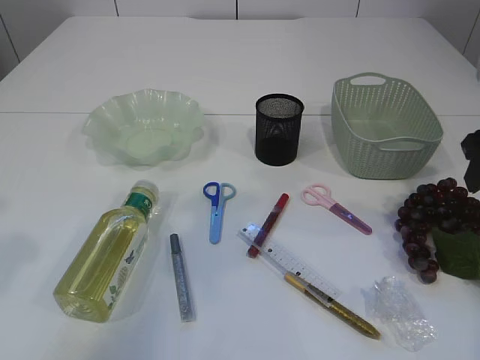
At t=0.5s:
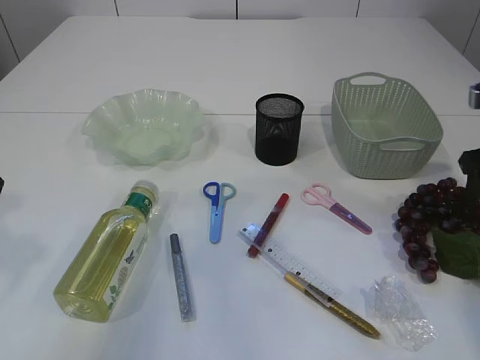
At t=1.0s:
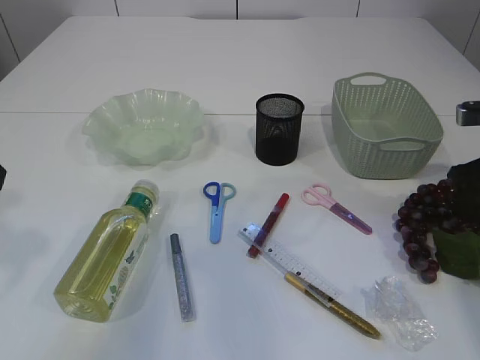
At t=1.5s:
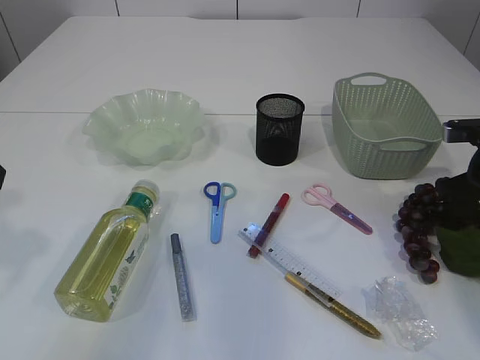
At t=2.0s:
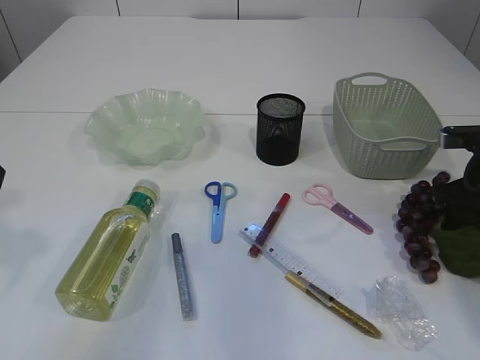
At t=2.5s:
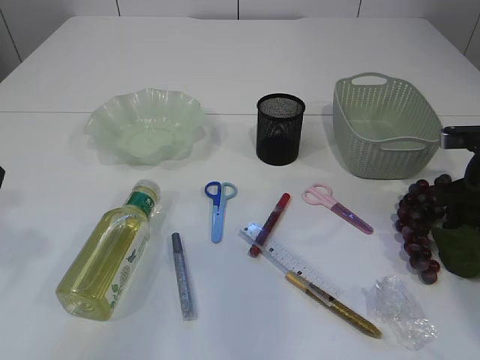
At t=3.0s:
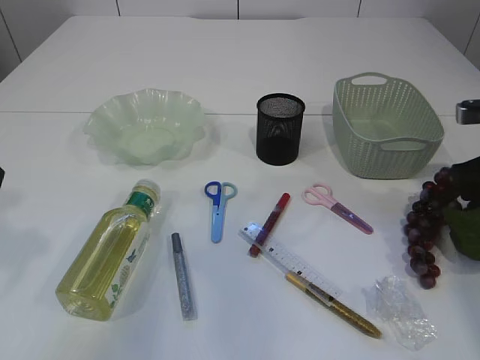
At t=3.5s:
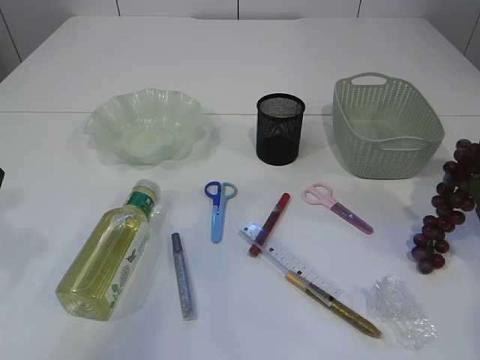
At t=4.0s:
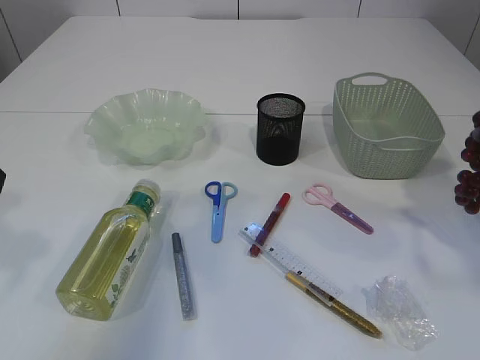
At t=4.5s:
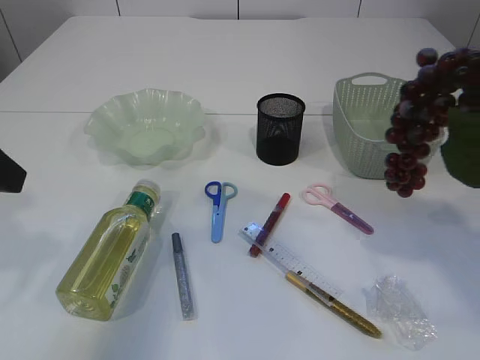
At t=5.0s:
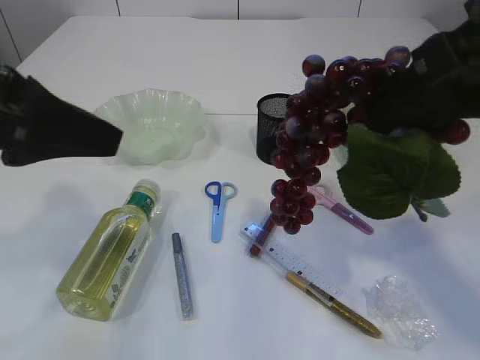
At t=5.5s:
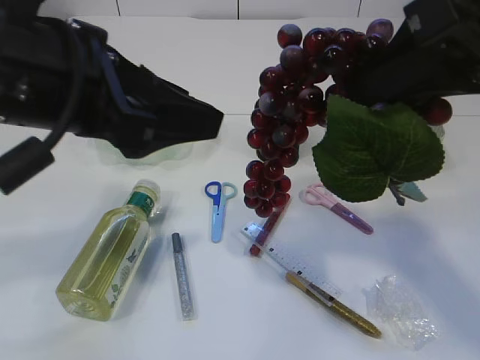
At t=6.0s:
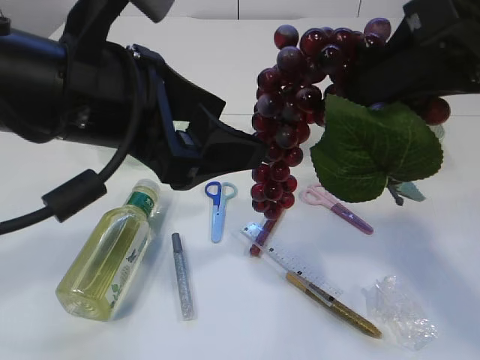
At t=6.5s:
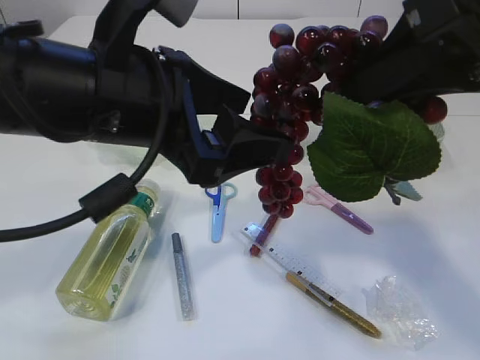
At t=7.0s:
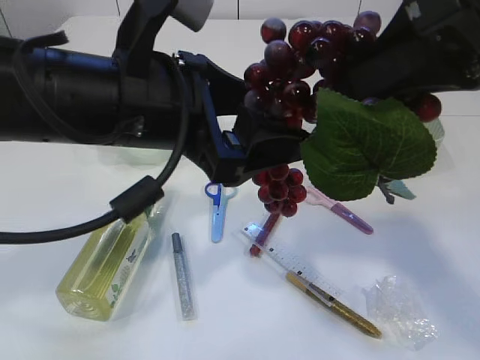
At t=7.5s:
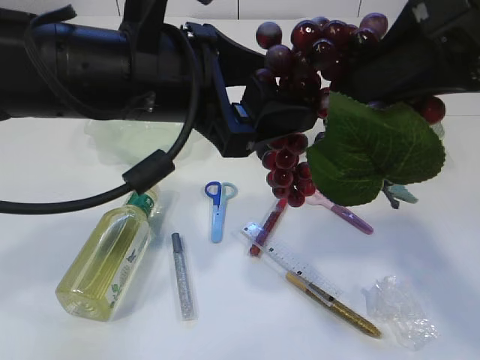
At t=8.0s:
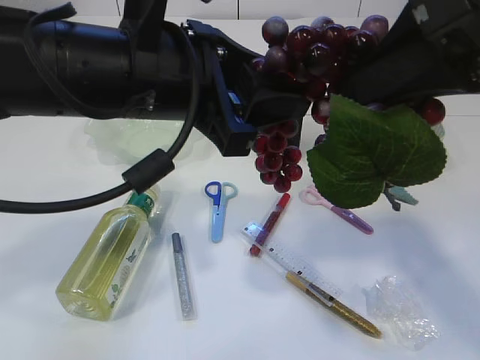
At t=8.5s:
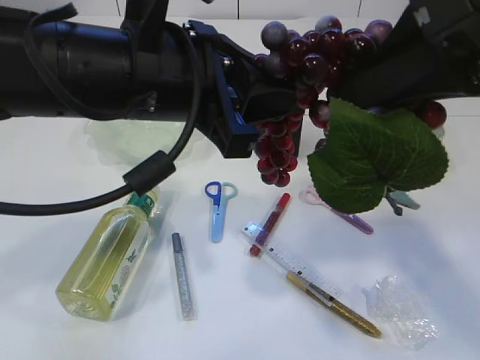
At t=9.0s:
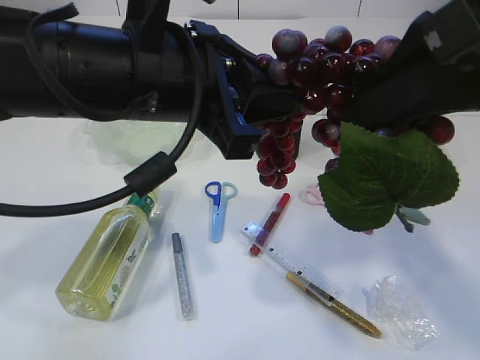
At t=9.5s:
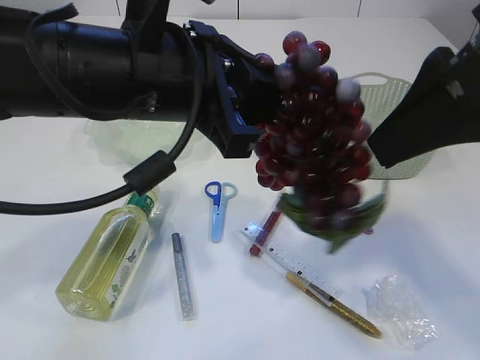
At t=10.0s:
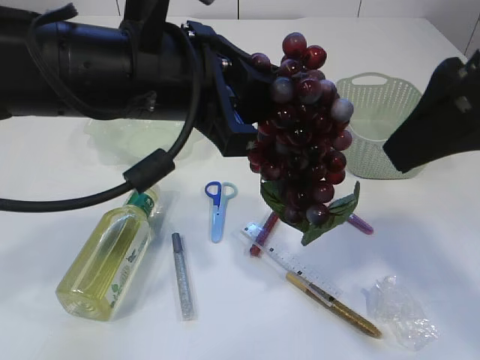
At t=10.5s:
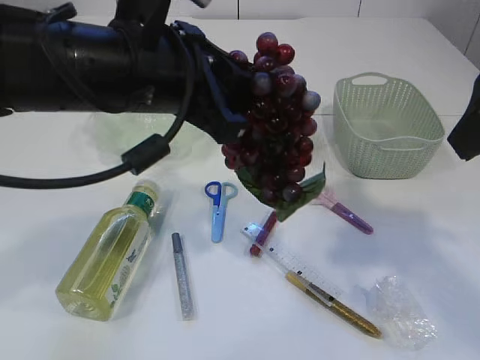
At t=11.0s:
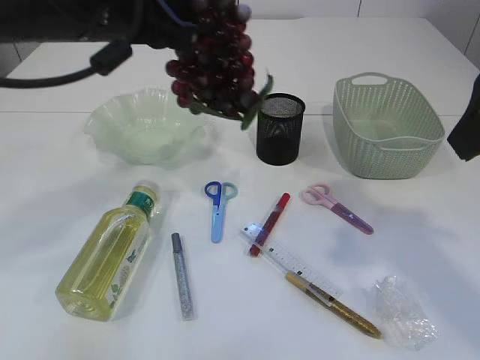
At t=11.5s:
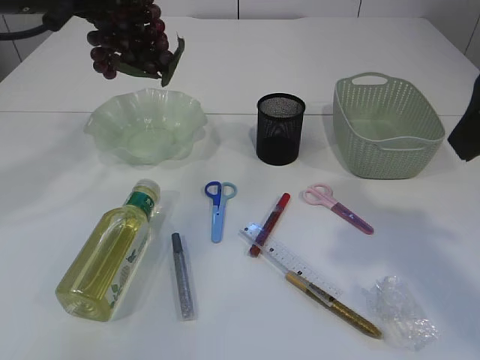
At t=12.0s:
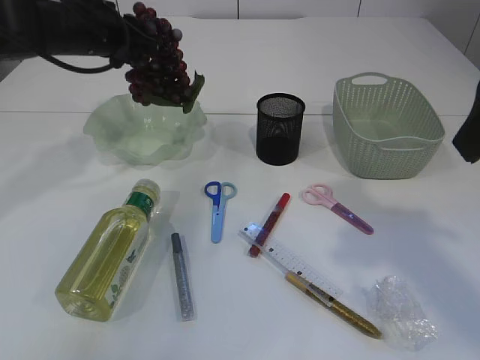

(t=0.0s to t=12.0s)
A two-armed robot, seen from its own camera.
Step, t=0.0s - t=4.0s: Pick up the grapes.
Step, t=4.5s - t=9.5s: Hand over the grapes.
t=0.0s - t=2.0s: The right gripper is displaced downward and forward by some 15 cm.
t=2.0s - t=4.0s: The right gripper goes roughly 20 cm upward and backward, and closes up.
t=4.0s - t=6.0s: The left gripper goes roughly 15 cm to the right, and opens its fingers, while the right gripper goes approximately 15 cm to the left.
t=6.0s - t=8.0s: The left gripper closes up.
t=8.0s - t=10.0s: The right gripper opens up; the left gripper closes up.
t=10.0s - t=12.0s: The left gripper shifts some 25 cm forward and to the left.

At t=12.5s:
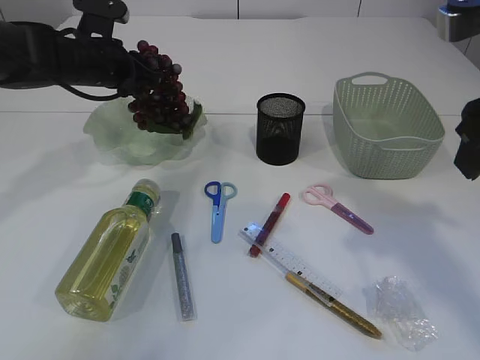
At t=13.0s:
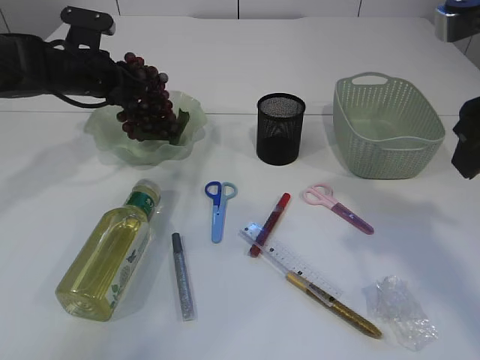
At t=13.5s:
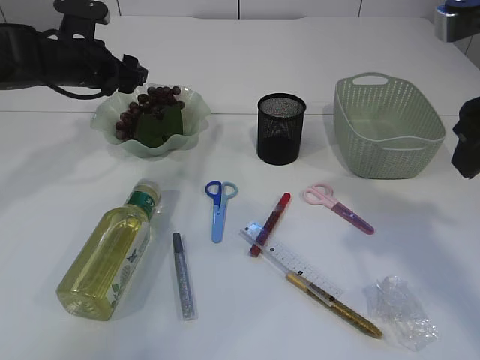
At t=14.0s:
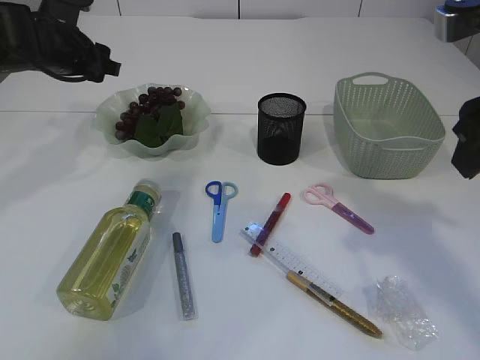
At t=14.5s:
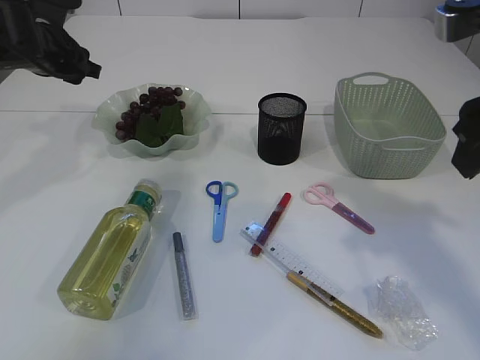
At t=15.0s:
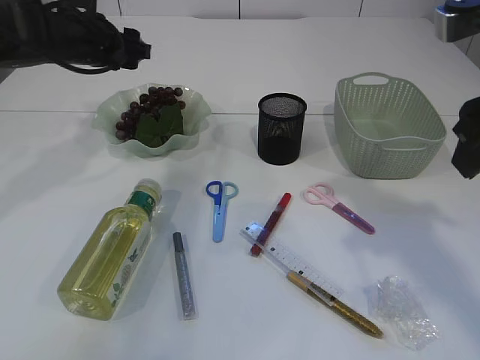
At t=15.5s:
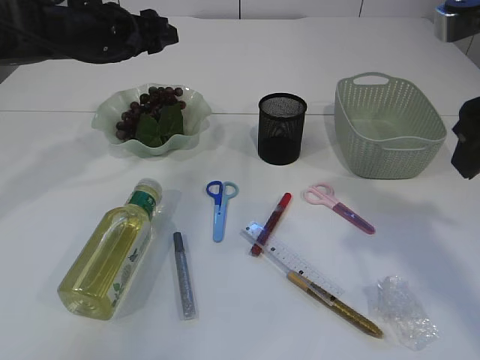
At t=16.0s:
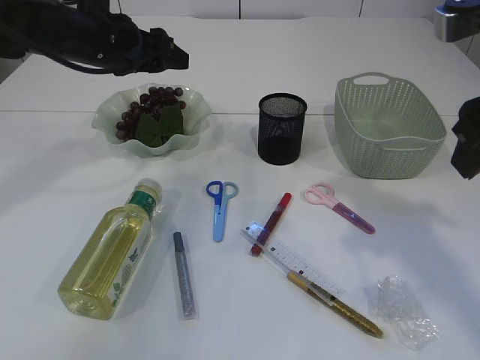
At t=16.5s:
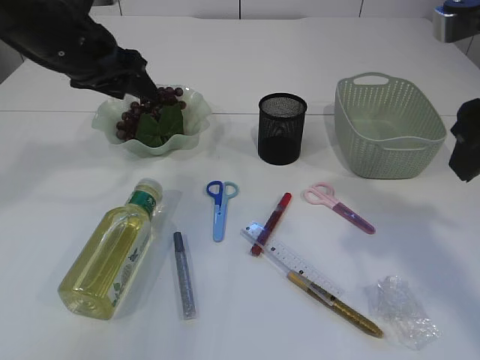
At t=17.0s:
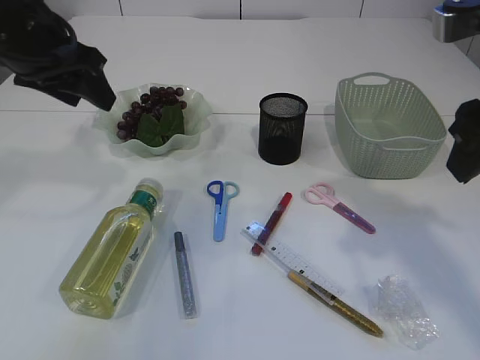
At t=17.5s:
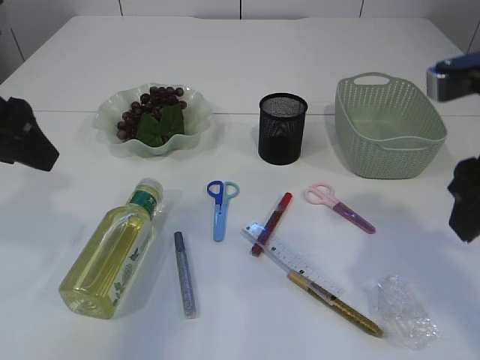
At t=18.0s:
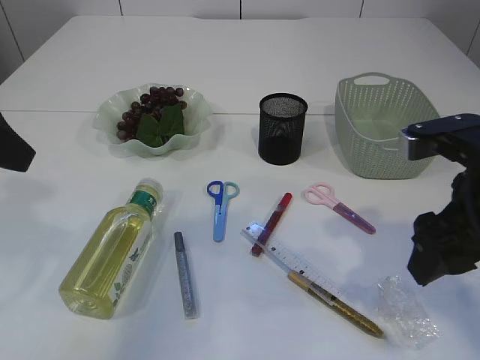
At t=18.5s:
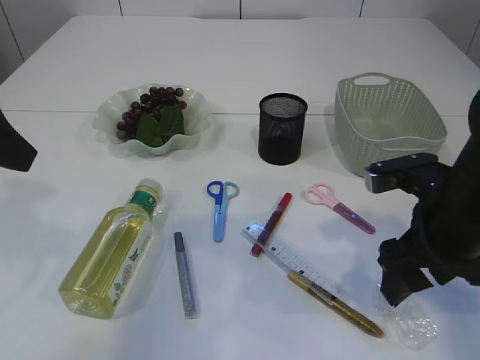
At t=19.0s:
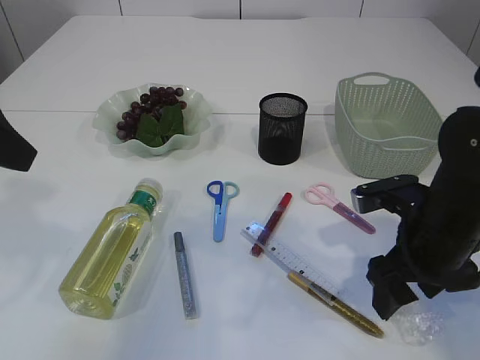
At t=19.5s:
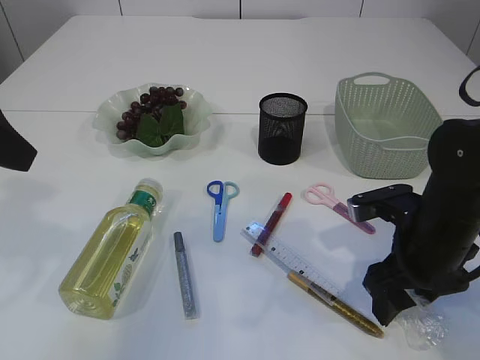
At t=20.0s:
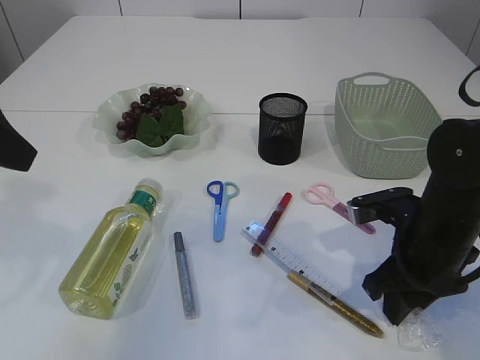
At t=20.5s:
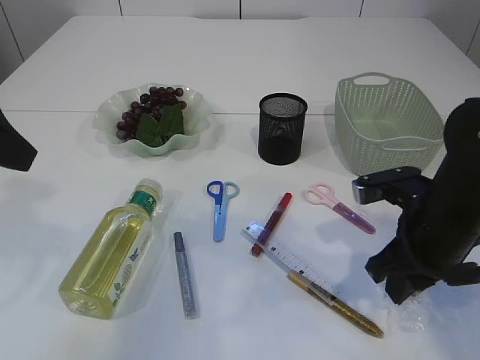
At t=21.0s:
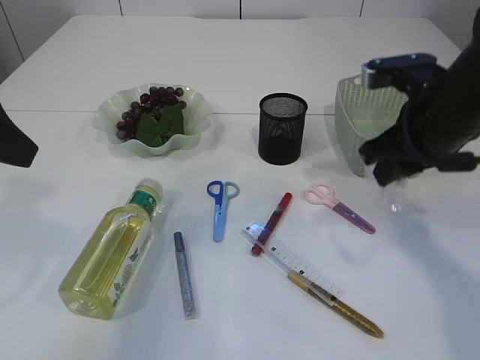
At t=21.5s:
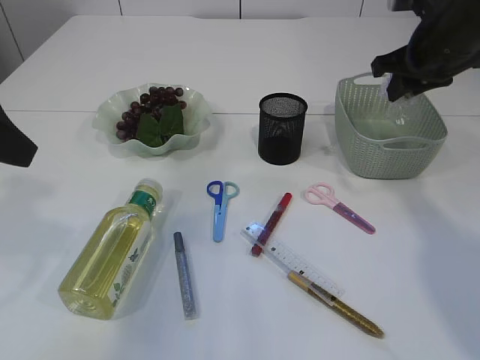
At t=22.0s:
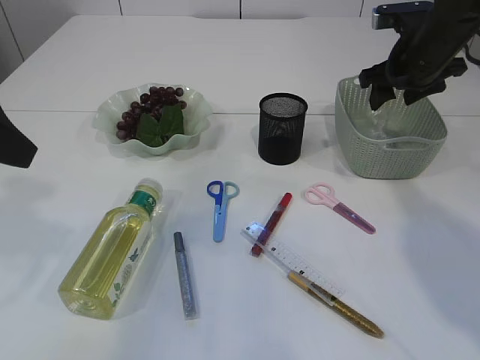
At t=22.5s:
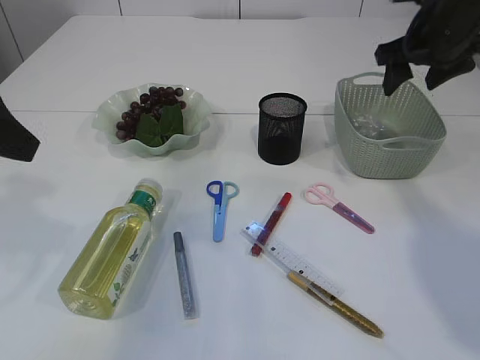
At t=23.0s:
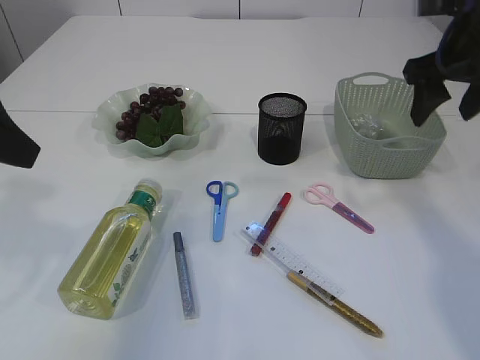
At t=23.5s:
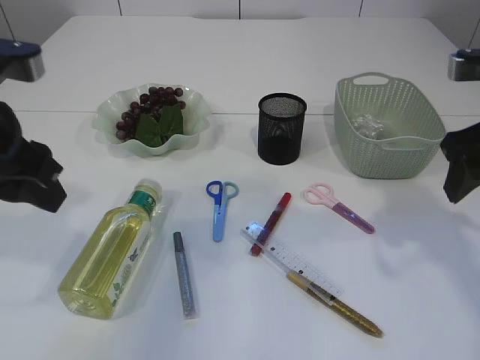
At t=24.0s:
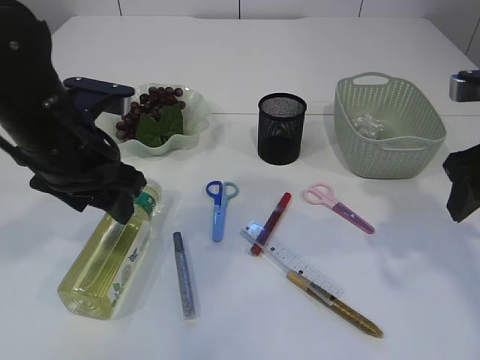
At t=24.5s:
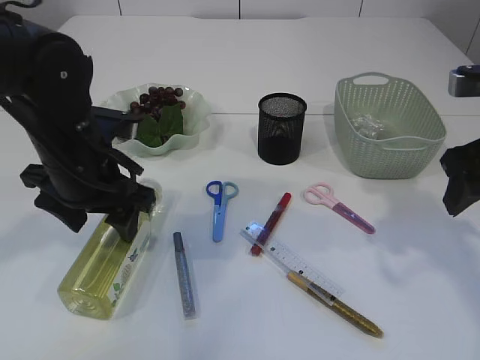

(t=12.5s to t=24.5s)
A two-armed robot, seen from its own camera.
Step, t=14.0s - t=20.5s: Pick up the plastic.
Step, t=21.0s - t=22.0s: Place the plastic in the basket.
t=12.5s - t=14.5s: The left gripper travels to the left by about 5 cm, and opens.
t=14.5s - t=16.5s: The left gripper heads to the right and backward, covering about 10 cm.
t=16.5s - t=18.5s: The right gripper moves downward, some 15 cm. The left gripper shifts some 20 cm backward.
t=18.5s - t=20.5s: The right gripper closes its fingers.
t=20.5s - t=22.5s: The right gripper moves forward and upward, approximately 20 cm, and opens its fingers.
t=22.5s - t=24.5s: The right gripper travels backward by some 15 cm; the left gripper heads downward, to the right and forward, covering about 15 cm.

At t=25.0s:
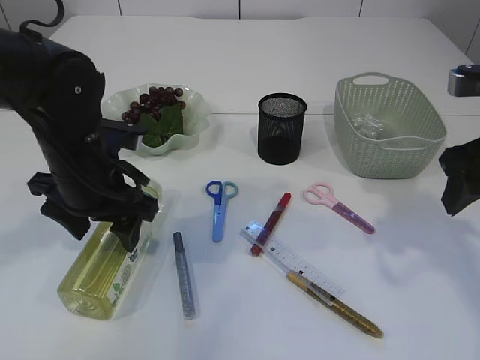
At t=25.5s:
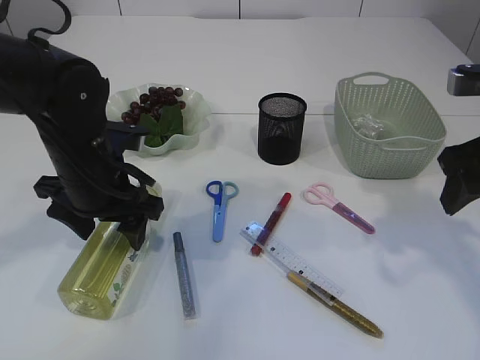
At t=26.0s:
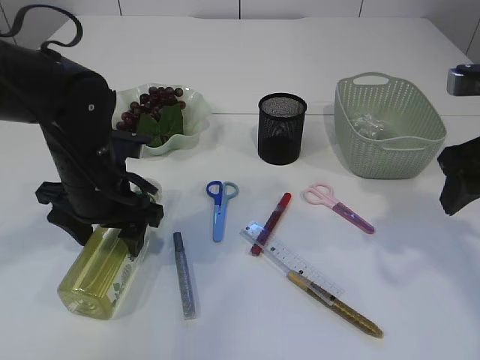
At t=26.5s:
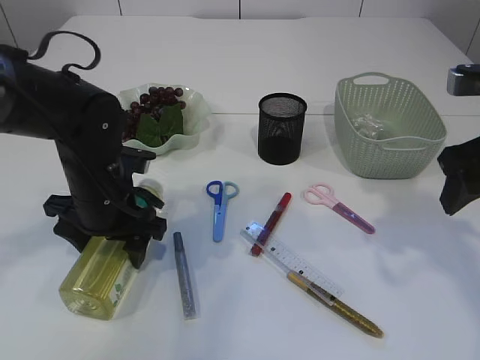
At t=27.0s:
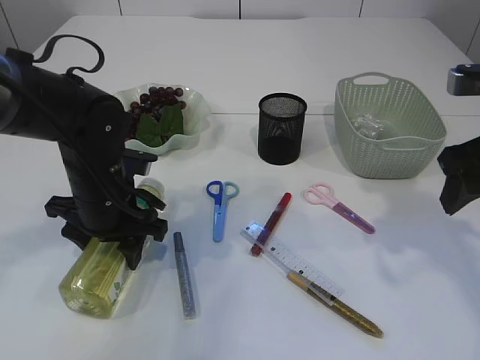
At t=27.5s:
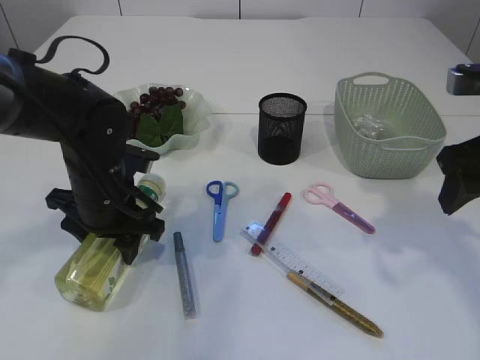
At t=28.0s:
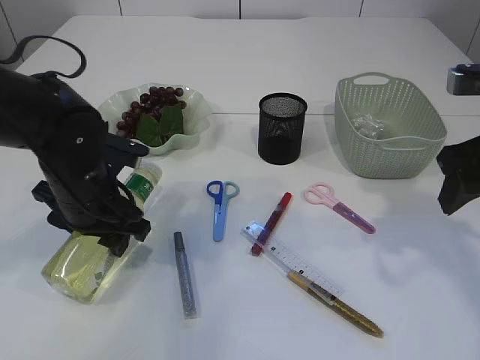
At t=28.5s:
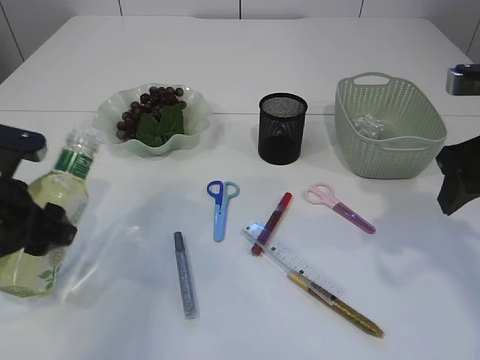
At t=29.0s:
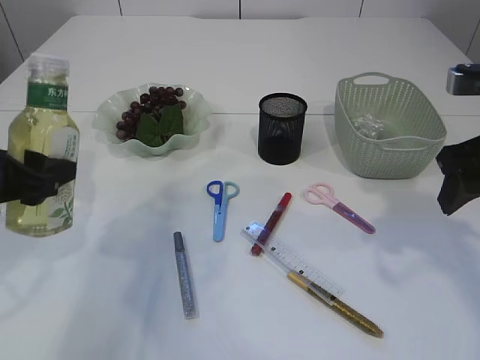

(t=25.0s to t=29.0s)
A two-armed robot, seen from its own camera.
Step, t=25.0s - t=28.0s: Pick up the bottle with the left arm.
t=25.0s - t=27.0s: There are only small adjustments of the grippers.
t=27.0s - t=29.0s: The left gripper is displaced to the left, upward and backward by roughly 15 cm.
